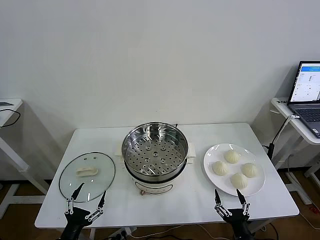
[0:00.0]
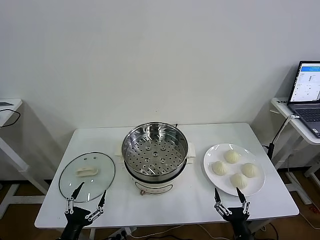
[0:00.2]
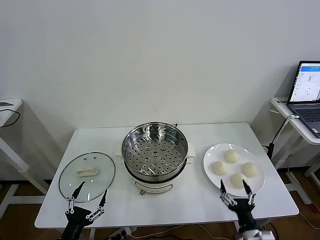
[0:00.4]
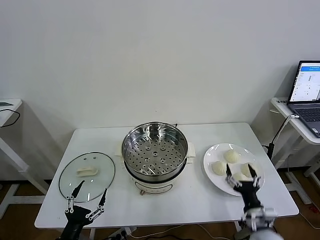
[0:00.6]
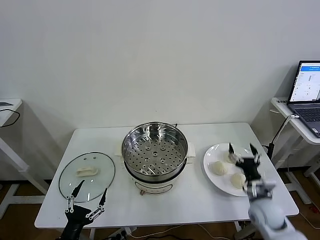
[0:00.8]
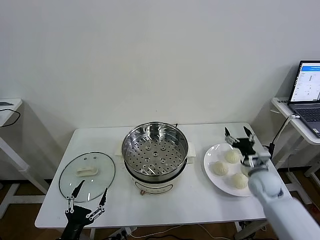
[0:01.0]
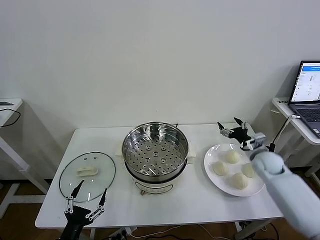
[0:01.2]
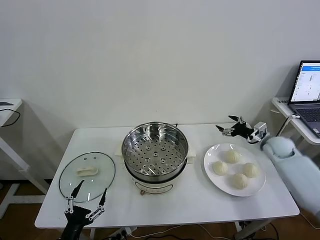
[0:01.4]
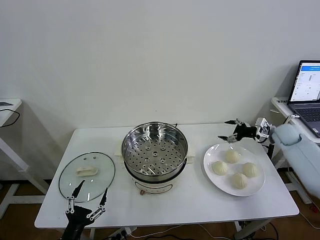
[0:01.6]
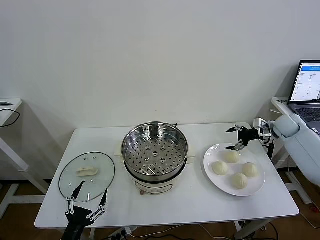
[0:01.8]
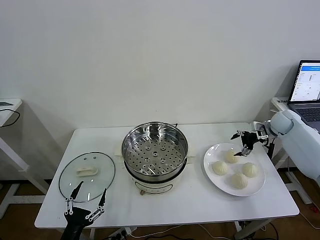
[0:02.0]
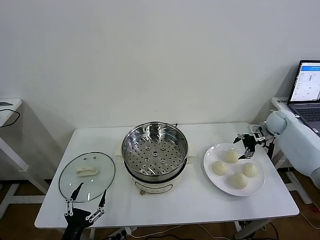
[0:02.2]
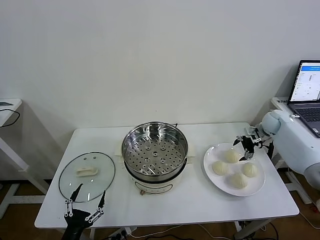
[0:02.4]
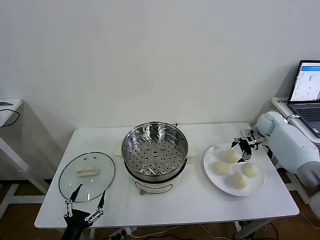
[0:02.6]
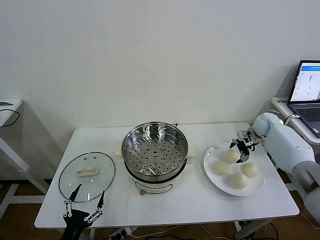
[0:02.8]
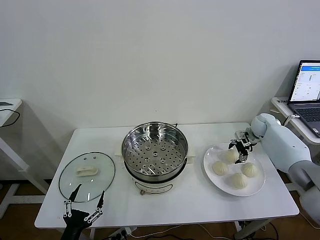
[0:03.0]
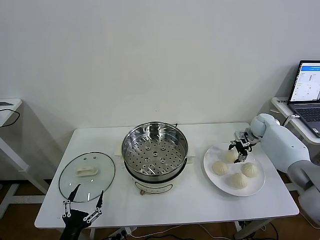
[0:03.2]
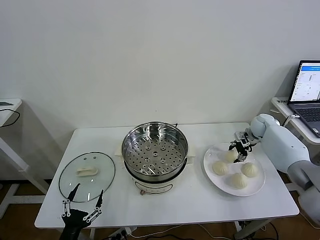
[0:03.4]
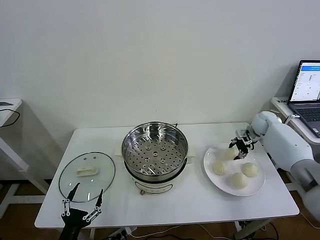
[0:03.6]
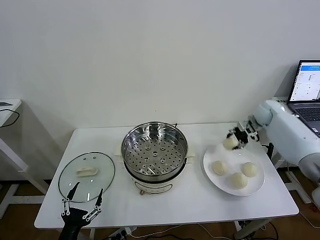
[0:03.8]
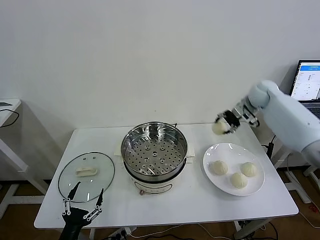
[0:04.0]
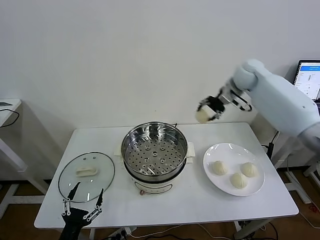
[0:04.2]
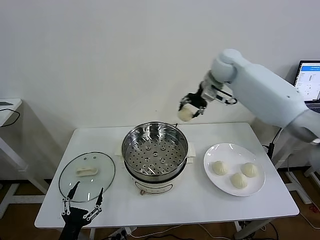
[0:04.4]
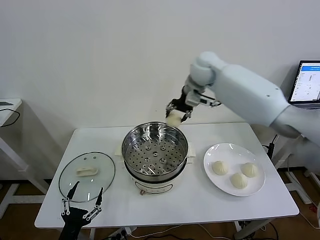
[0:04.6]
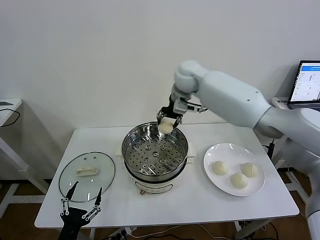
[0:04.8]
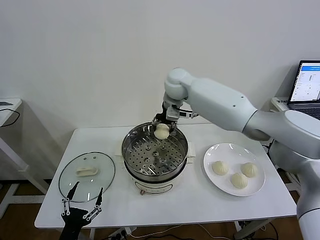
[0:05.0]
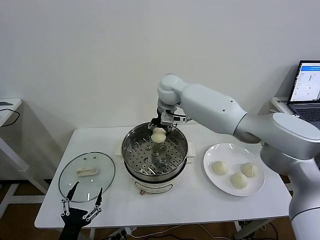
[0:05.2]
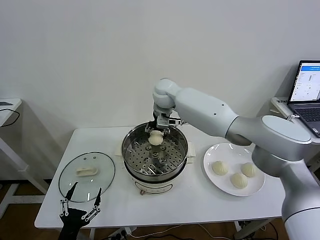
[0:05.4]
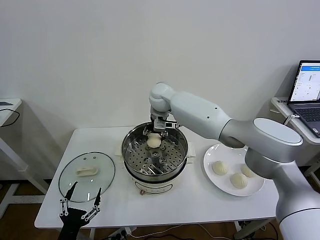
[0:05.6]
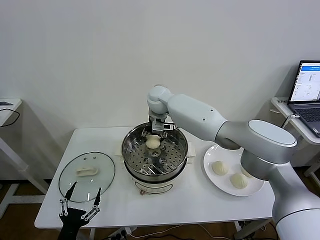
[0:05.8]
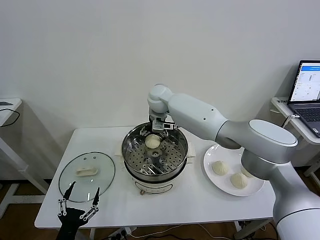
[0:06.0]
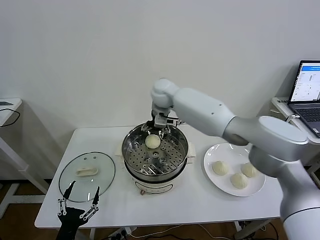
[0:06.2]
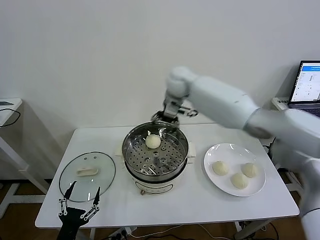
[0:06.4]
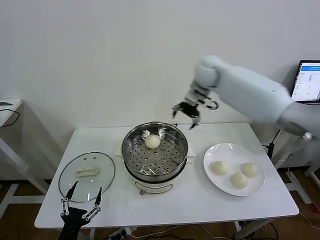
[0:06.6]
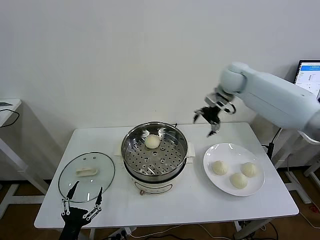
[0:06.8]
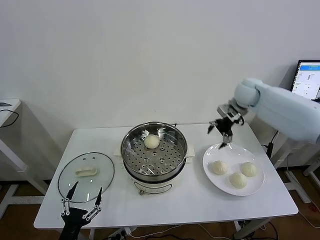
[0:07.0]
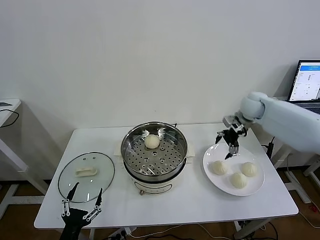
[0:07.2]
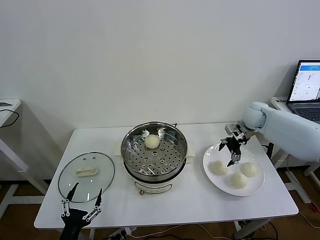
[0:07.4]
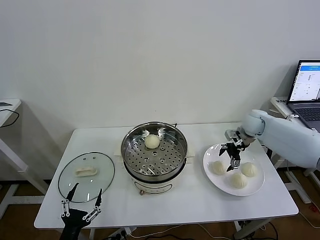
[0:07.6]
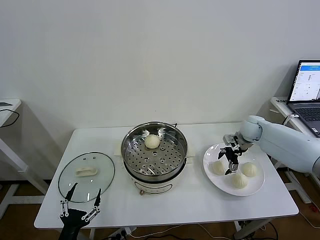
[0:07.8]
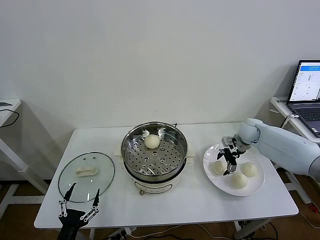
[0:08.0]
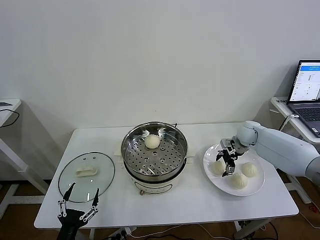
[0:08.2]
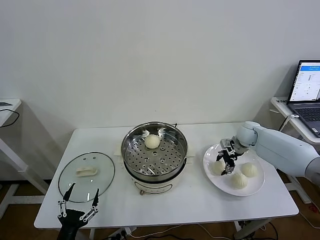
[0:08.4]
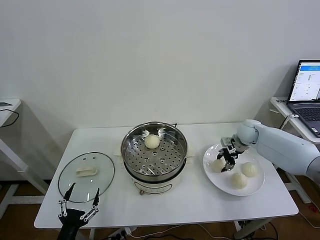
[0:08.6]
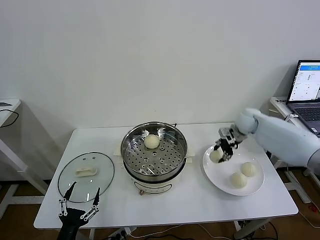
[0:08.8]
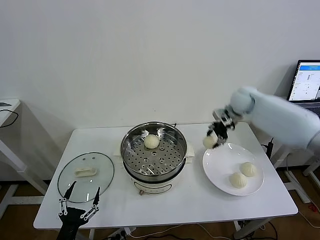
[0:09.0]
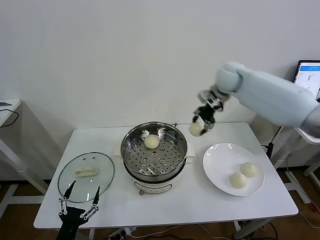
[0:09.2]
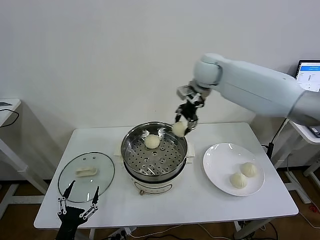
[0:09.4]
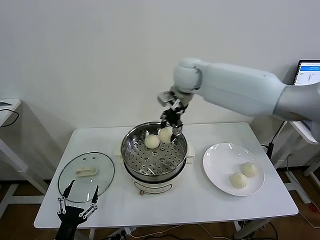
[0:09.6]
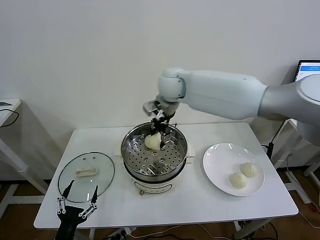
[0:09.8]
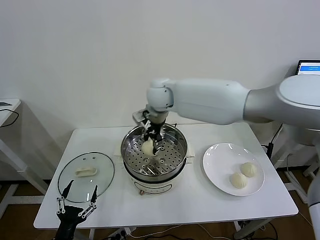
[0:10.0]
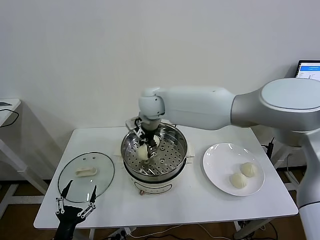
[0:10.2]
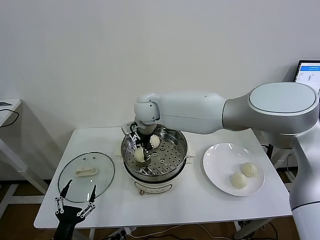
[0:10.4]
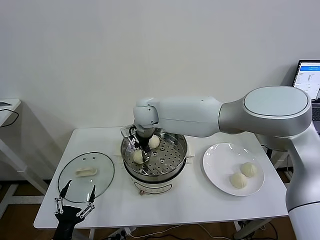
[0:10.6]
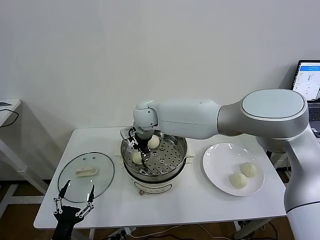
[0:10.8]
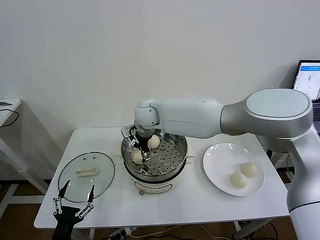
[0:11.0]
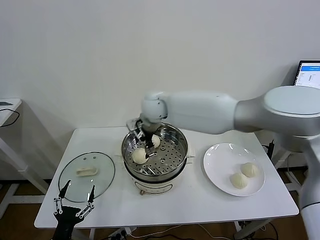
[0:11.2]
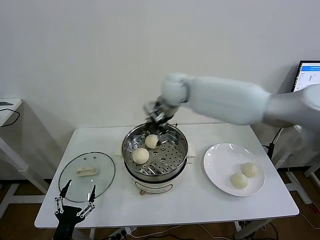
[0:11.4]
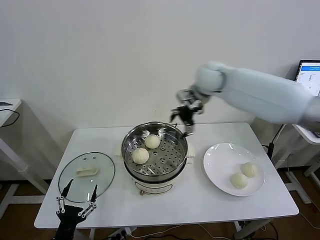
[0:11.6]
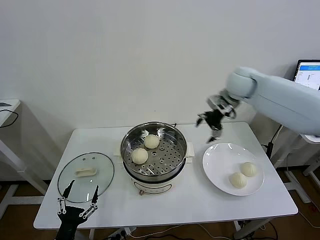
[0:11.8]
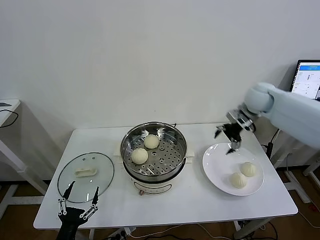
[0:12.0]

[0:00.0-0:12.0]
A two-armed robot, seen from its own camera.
Task of the whole recording: take steamed baozi put them in steamer then cover it.
Step, 0:00.0 to 0:03.4: Grasp the baozi in the plate with right gripper.
Step, 0:03.6 to 0:06.0: Place the baozi on the steamer with right gripper.
Step, 0:06.2 to 0:08.4: Grasp the baozi in the plate with right gripper.
Step, 0:08.6 to 0:11.0: Place the baozi on the steamer with right gripper.
0:01.6 to 0:03.0: The right gripper moves forward and to the left, roughly 10 cm, and closes up.
0:03.0 to 0:04.4: The right gripper goes about 35 cm to the left and upward, and closes its fingers.
0:04.4 to 0:06.0: The right gripper moves to the left and downward, about 20 cm, and opens its fingers.
0:06.0 to 0:07.6: The right gripper heads to the right, covering about 35 cm.
0:07.6 to 0:09.0: The right gripper moves upward and to the left, about 15 cm, and closes.
0:09.0 to 0:10.4: The right gripper is displaced to the left by approximately 30 cm.
0:10.4 to 0:12.0: The right gripper goes about 40 cm to the right, and opens its fingers.

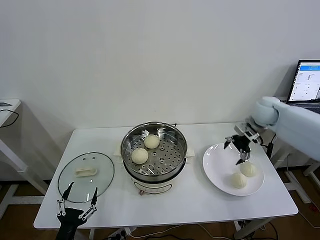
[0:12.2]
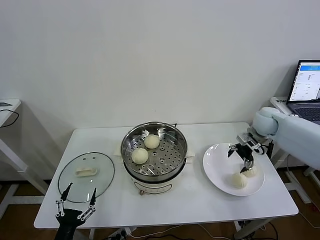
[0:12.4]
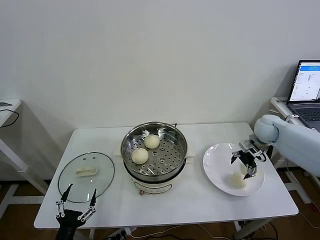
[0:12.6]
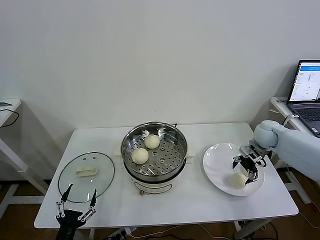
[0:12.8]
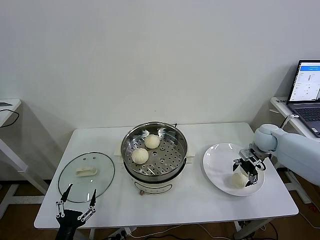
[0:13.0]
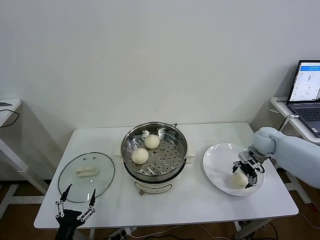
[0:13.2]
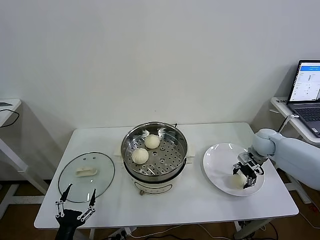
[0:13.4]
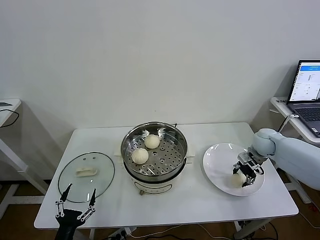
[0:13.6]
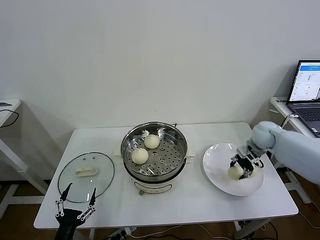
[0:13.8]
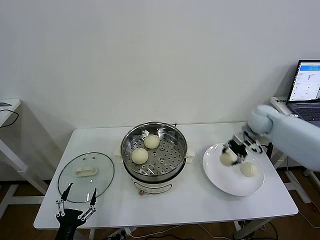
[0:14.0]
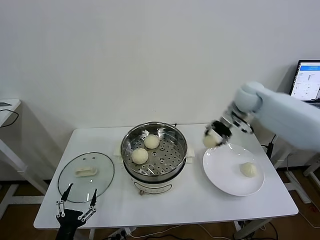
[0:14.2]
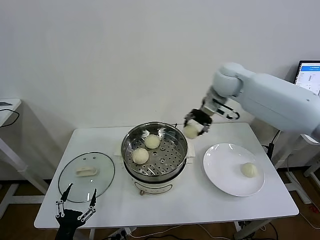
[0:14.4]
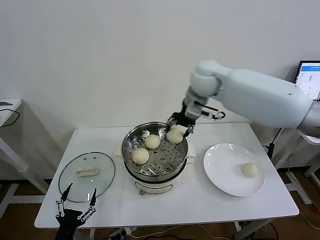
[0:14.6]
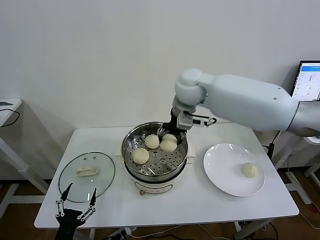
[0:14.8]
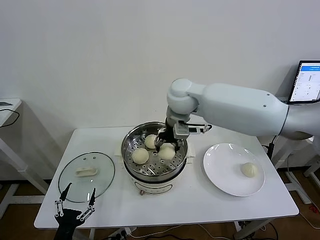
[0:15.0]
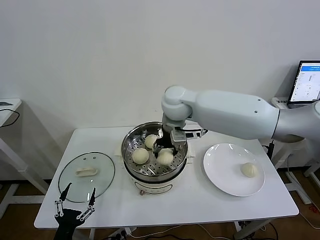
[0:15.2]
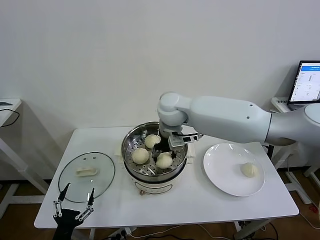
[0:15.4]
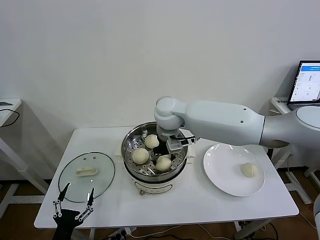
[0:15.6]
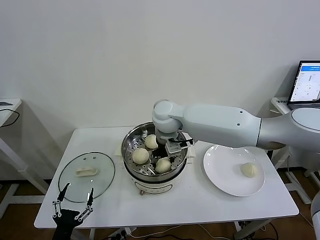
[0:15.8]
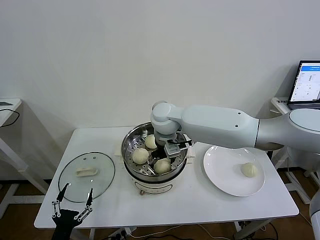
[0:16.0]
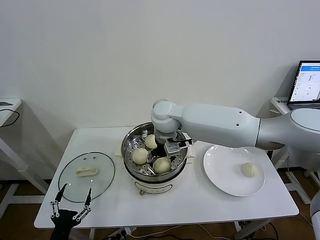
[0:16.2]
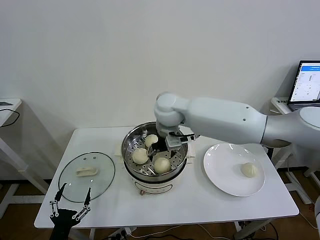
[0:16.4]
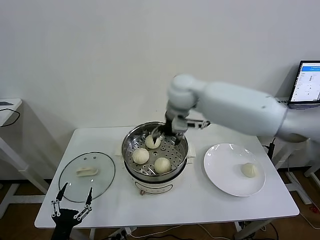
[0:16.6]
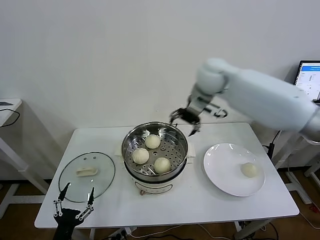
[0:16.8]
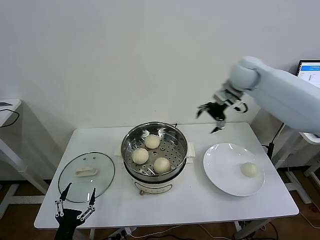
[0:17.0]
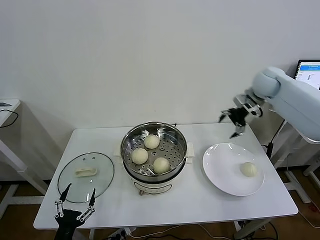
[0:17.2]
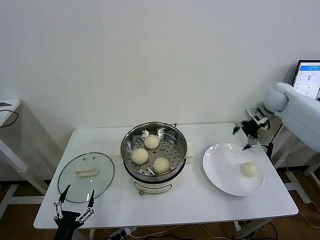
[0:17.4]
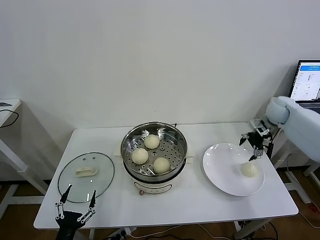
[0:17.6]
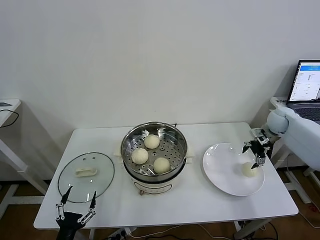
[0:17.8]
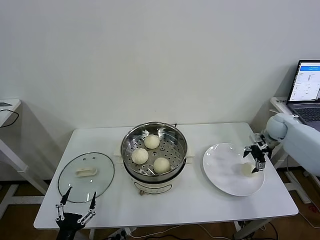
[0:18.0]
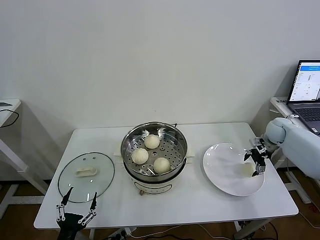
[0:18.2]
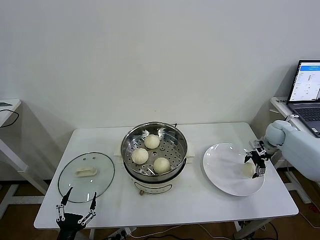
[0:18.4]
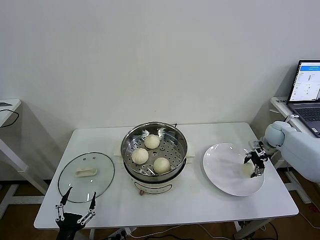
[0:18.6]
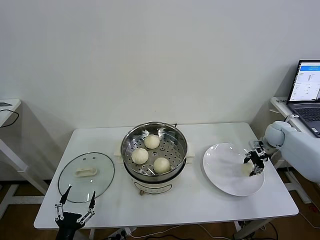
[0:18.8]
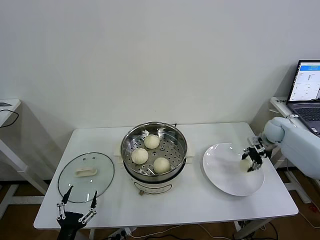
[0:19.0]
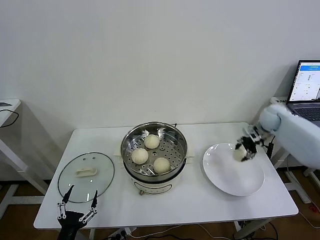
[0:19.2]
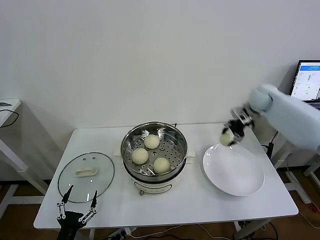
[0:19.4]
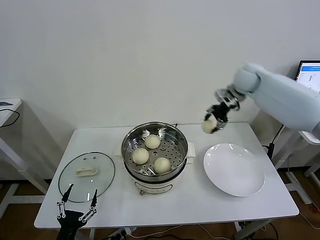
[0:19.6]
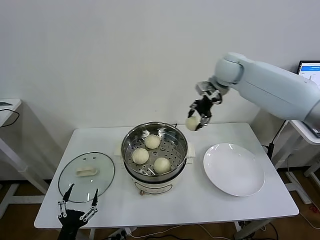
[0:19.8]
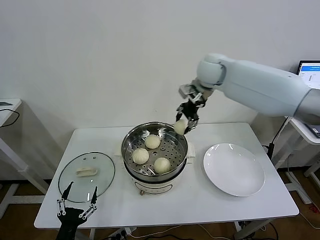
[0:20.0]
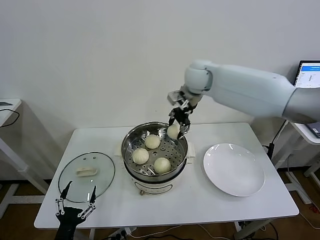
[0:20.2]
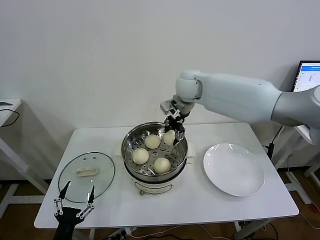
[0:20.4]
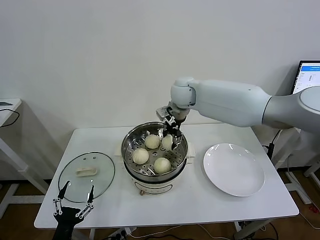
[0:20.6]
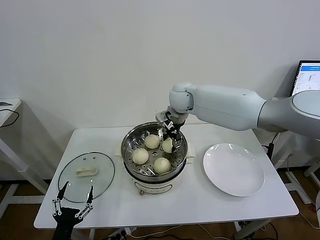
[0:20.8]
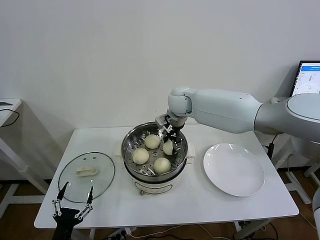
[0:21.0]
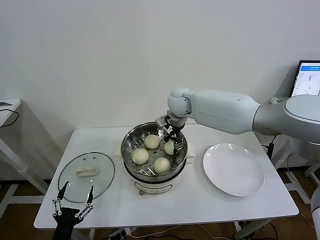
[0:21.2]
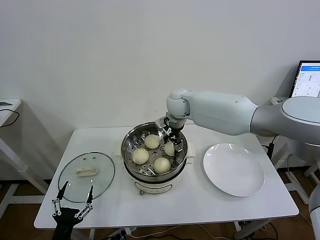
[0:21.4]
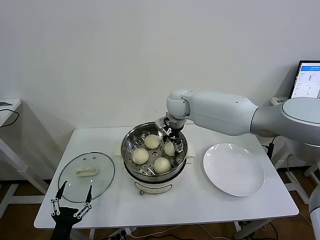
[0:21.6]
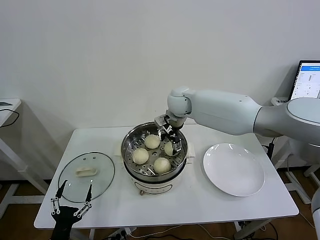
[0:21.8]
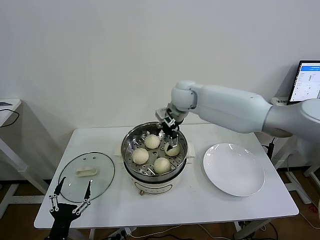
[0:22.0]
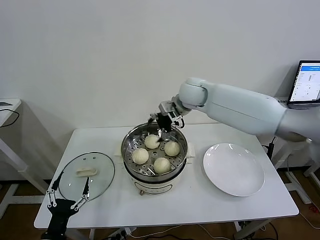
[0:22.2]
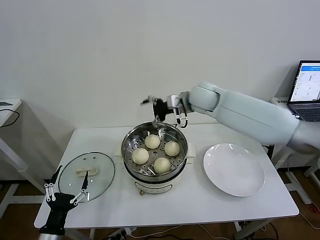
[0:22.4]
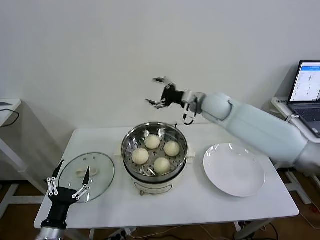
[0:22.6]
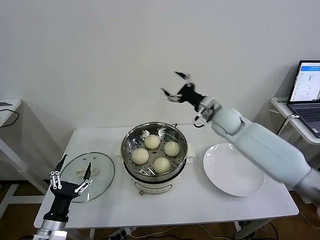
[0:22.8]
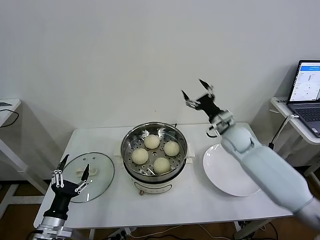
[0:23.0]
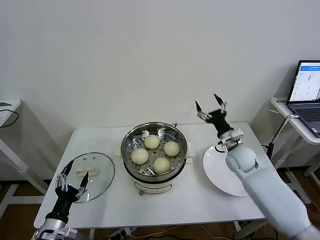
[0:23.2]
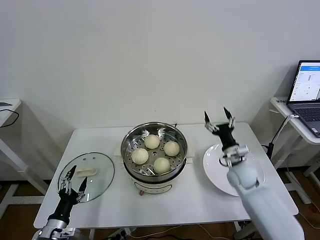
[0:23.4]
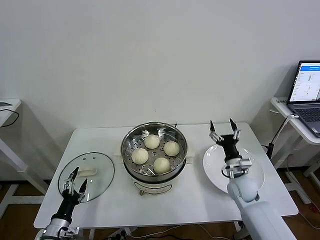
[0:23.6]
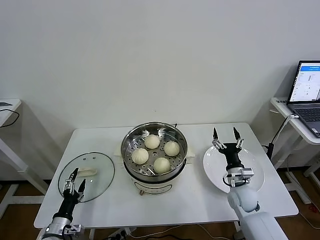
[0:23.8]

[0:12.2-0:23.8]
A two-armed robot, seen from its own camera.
Task of the whole recording: take steamed baozi put them in steamer then cover it.
Step, 0:12.2 to 0:13.6: Grasp the baozi in the plate with right gripper.
Step, 0:13.8 to 0:16.0: Place the baozi on the steamer with right gripper.
Step, 0:16.2 to 0:18.8: Grasp the baozi in the plate with right gripper.
Step, 0:19.0 to 0:21.4: Place the baozi on the steamer with right gripper.
0:12.2 to 0:13.6: The right gripper shifts about 10 cm downward, and closes up.
0:13.6 to 0:15.0: The right gripper travels to the left and upward by about 40 cm.
0:15.0 to 0:16.6: The right gripper moves approximately 5 cm downward and comes back, and opens its fingers.
0:16.6 to 0:18.0: The right gripper travels to the right and downward by roughly 40 cm.
0:18.0 to 0:19.4: The right gripper is displaced upward and to the left by roughly 15 cm, and closes.
0:19.4 to 0:21.0: The right gripper heads to the left, covering approximately 30 cm.
0:21.0 to 0:22.4: The right gripper is displaced to the right by roughly 5 cm, and opens its fingers.
0:22.4 to 0:23.8: The left gripper shifts about 10 cm downward and forward. Meanwhile the right gripper travels downward, backward and to the right by roughly 40 cm.
